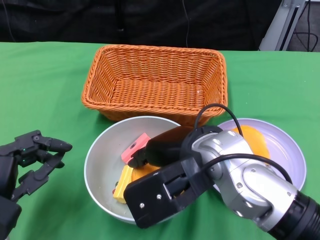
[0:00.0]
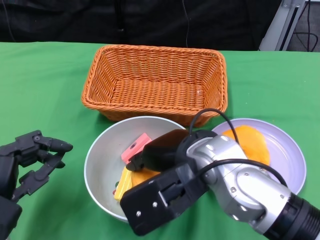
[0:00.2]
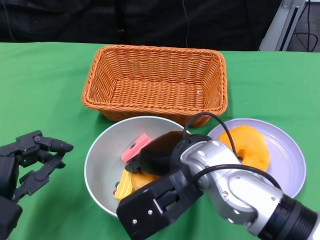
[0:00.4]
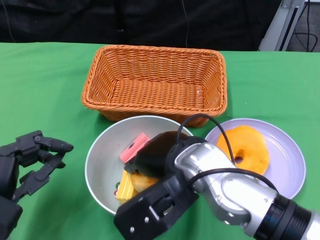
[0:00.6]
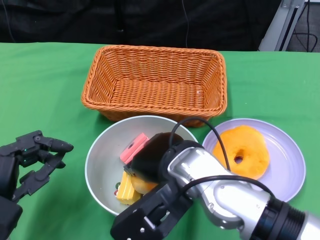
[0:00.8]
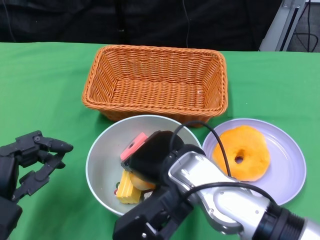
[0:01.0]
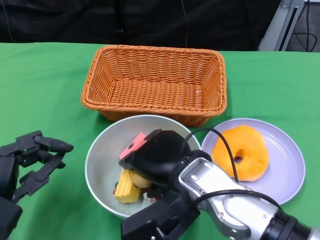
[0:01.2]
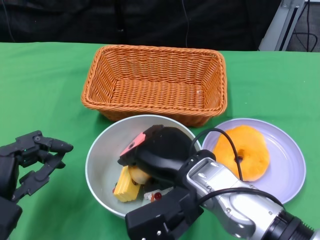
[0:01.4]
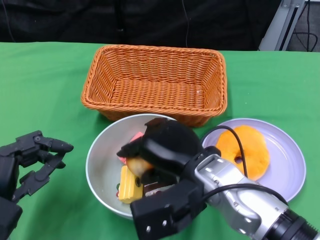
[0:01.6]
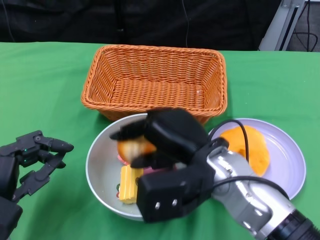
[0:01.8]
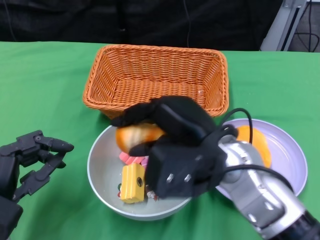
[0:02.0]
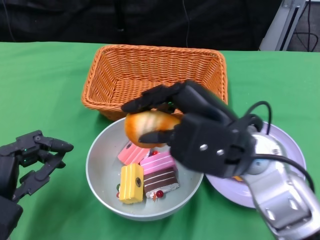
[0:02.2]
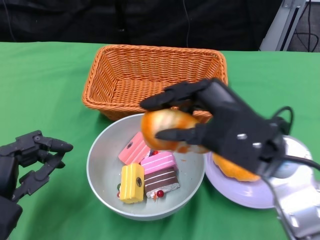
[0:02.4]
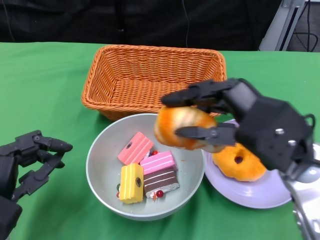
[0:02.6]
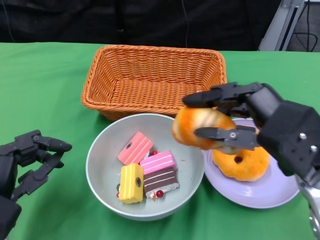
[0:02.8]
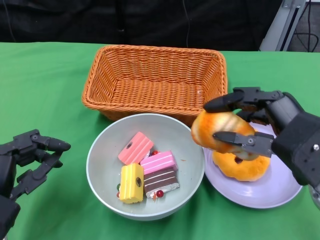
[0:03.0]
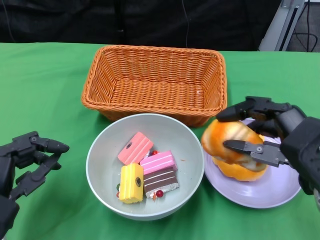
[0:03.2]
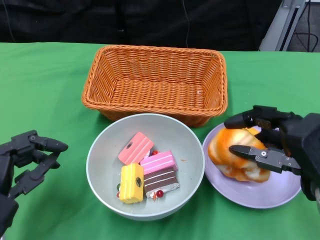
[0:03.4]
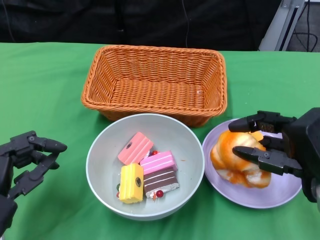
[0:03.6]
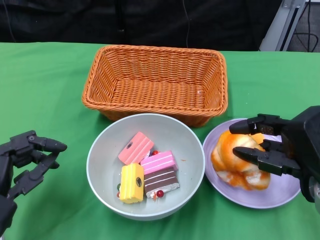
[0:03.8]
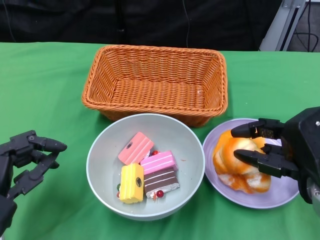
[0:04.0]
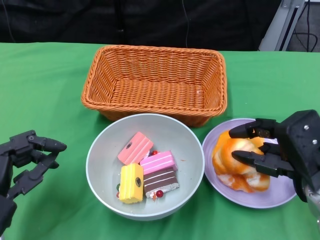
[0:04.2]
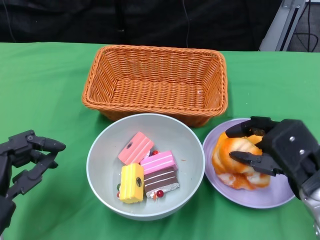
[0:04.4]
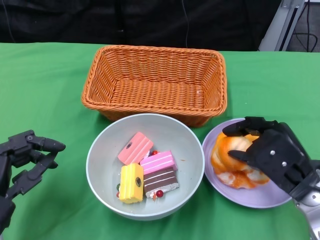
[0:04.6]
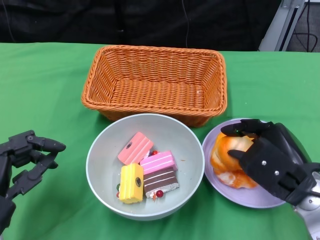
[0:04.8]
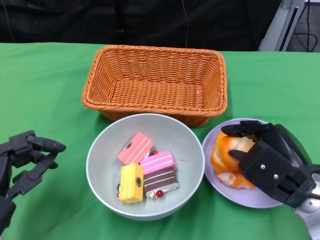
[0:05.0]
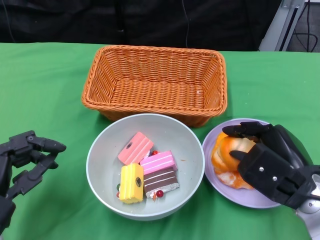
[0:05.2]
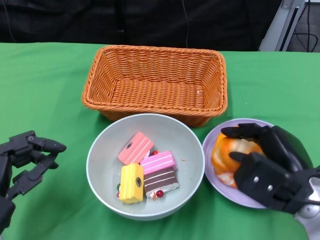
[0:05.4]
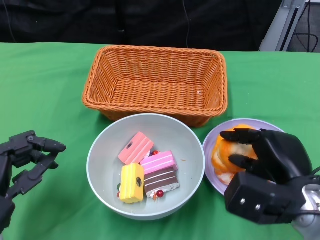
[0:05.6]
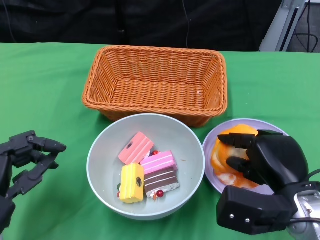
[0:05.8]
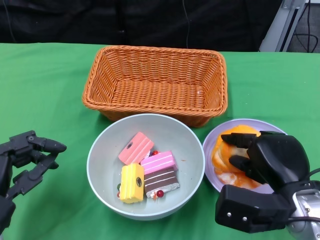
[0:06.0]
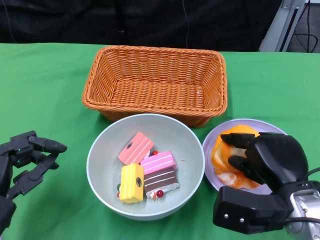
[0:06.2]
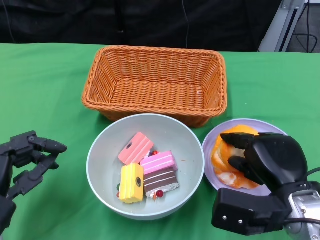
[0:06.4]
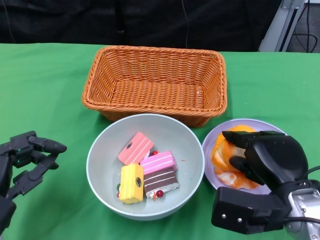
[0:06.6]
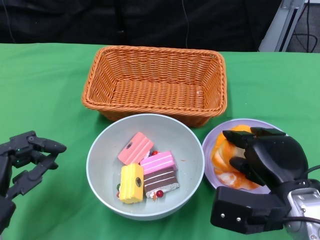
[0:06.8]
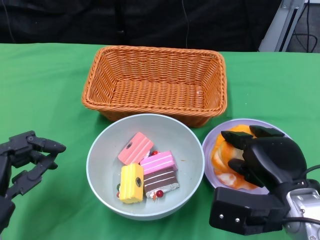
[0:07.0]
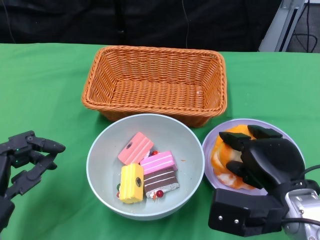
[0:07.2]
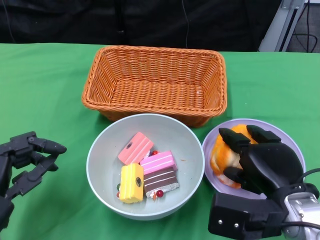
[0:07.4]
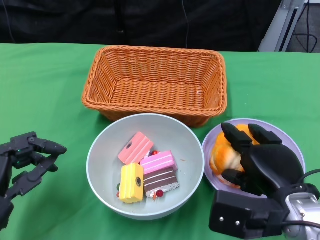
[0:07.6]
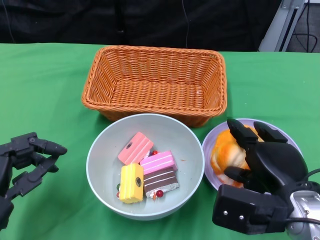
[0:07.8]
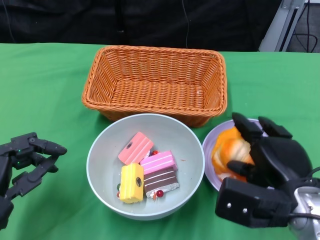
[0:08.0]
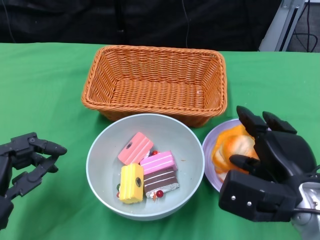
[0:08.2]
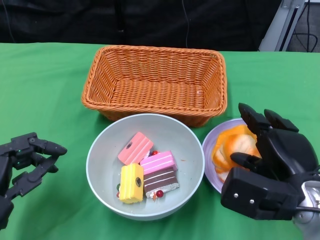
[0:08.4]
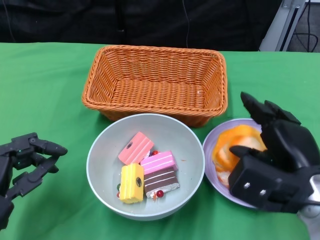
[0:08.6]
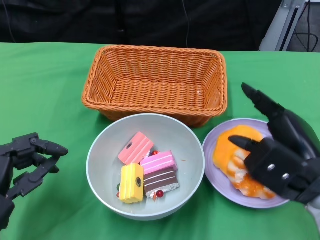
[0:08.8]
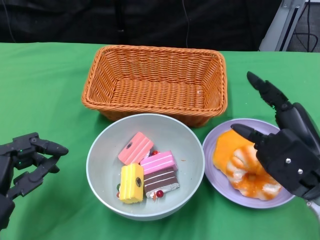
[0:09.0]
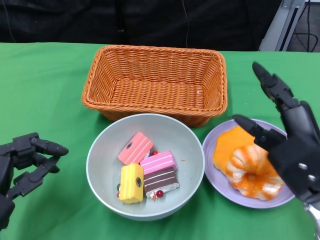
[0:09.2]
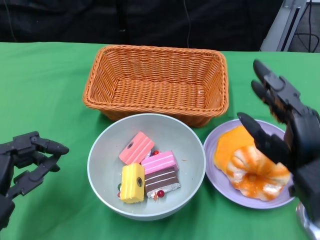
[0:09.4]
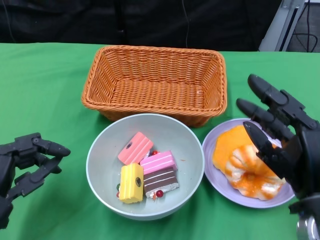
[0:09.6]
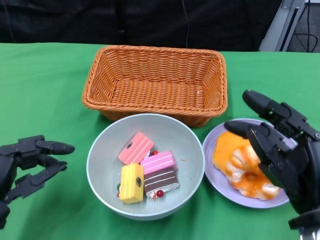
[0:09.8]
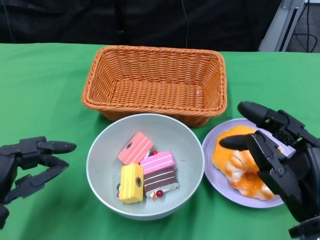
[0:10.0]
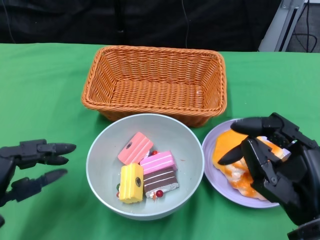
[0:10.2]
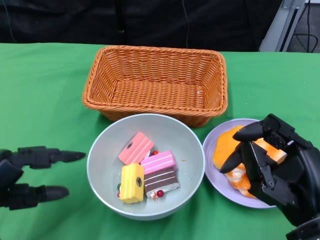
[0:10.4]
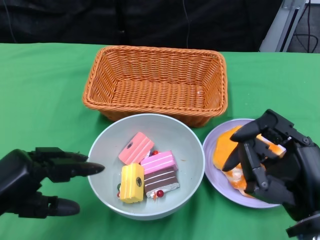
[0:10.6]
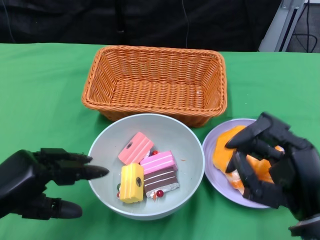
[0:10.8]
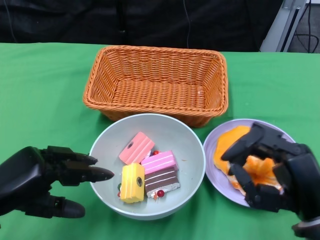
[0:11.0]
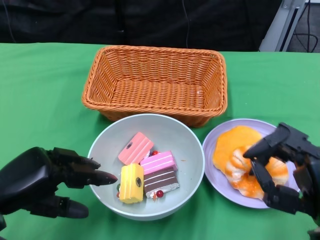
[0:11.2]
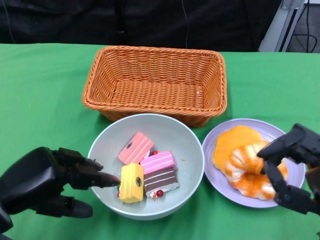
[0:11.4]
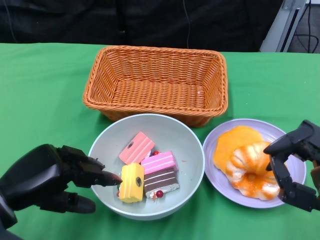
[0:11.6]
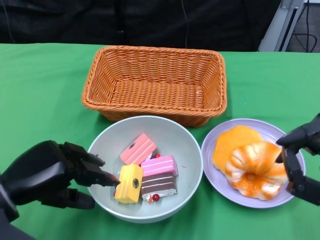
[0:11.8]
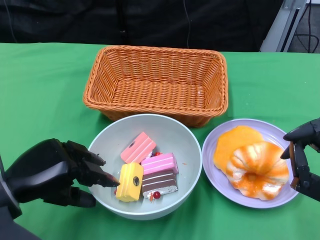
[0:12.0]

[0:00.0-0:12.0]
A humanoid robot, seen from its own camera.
Step, 0:00.0 to 0:09.0: Pick up the bread with the right gripper and place it on the plate.
0:00.0 to 0:01.6: The right hand goes some 5 cm downward.
0:01.6 to 0:03.0: The right hand moves to the right, approximately 15 cm.
0:03.0 to 0:04.4: The right hand moves downward, roughly 5 cm.
0:06.0 to 0:07.6: The hands make only small movements.
0:07.6 to 0:09.0: The right hand shifts by approximately 5 cm.
0:09.0 to 0:10.4: The right hand shifts some 5 cm backward.
0:10.4 to 0:12.0: The left hand moves some 5 cm.

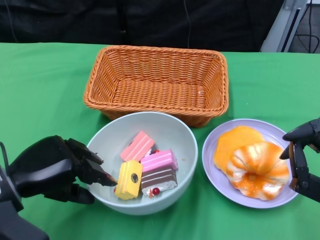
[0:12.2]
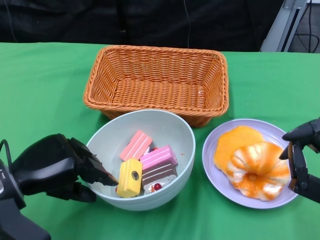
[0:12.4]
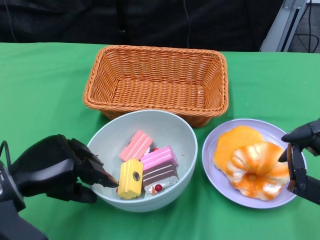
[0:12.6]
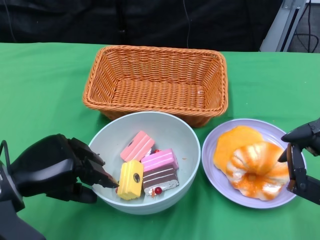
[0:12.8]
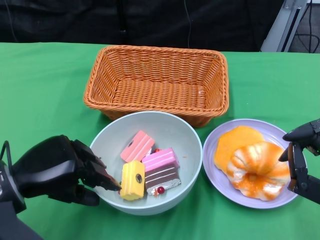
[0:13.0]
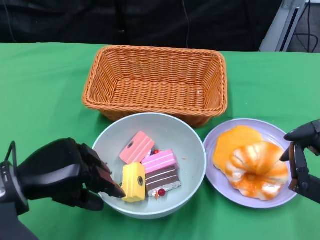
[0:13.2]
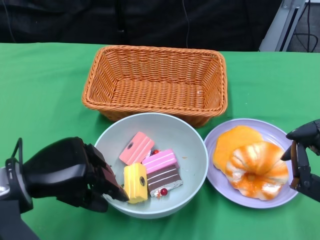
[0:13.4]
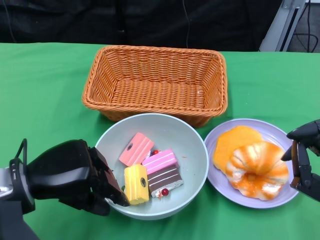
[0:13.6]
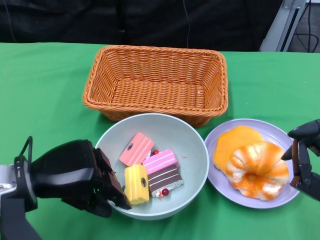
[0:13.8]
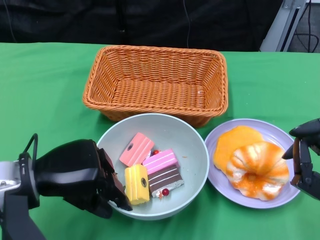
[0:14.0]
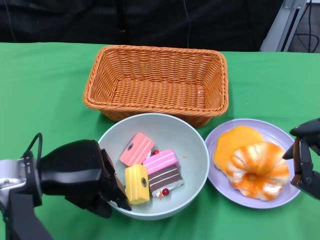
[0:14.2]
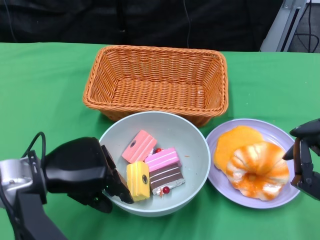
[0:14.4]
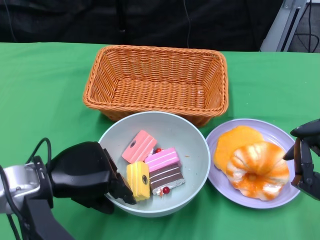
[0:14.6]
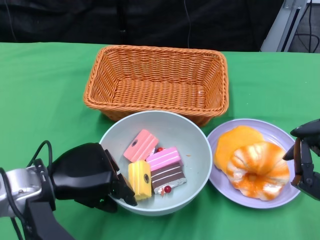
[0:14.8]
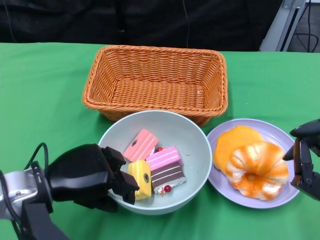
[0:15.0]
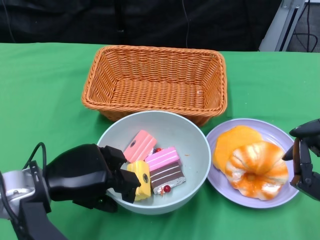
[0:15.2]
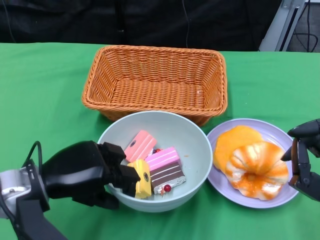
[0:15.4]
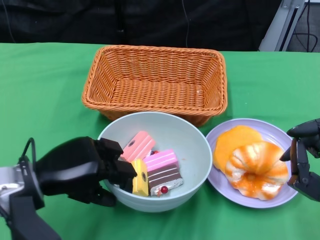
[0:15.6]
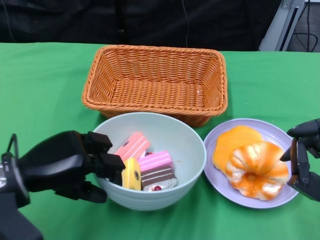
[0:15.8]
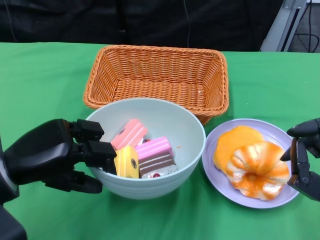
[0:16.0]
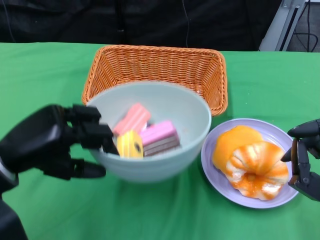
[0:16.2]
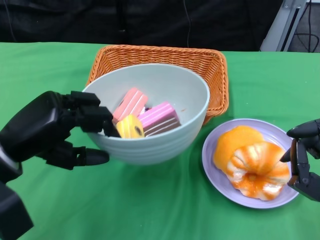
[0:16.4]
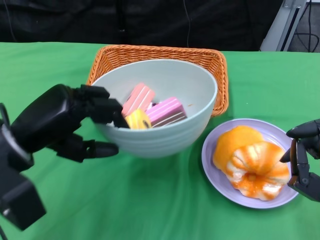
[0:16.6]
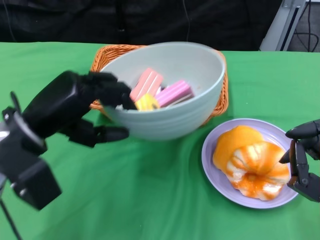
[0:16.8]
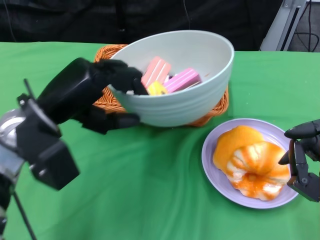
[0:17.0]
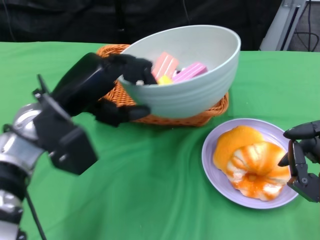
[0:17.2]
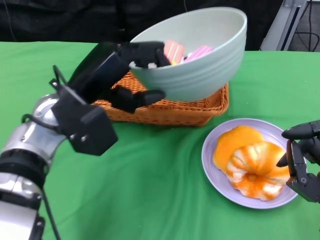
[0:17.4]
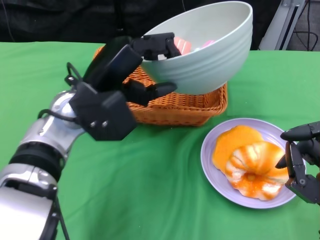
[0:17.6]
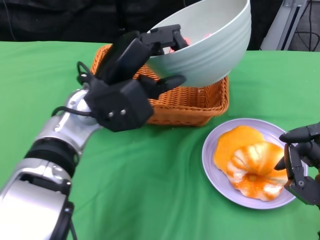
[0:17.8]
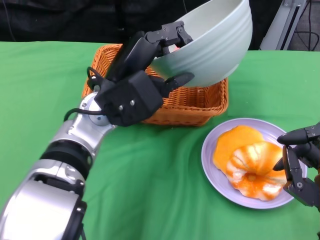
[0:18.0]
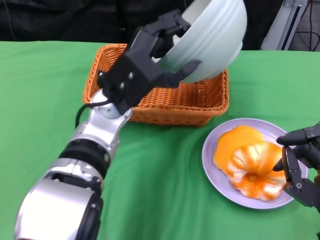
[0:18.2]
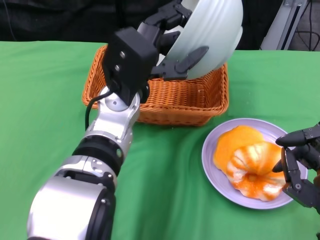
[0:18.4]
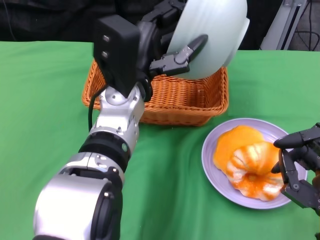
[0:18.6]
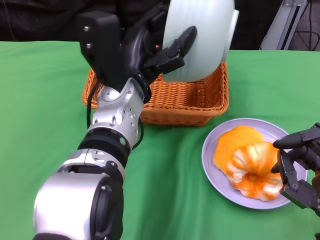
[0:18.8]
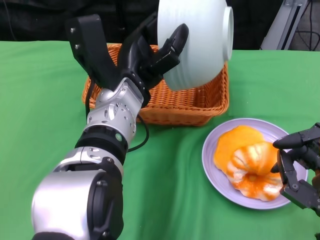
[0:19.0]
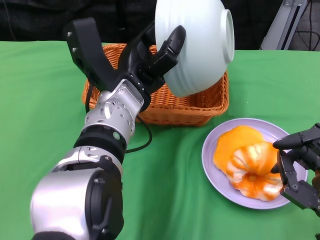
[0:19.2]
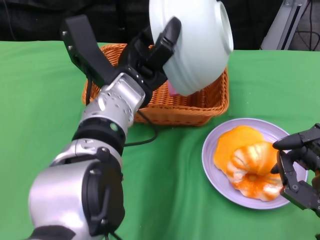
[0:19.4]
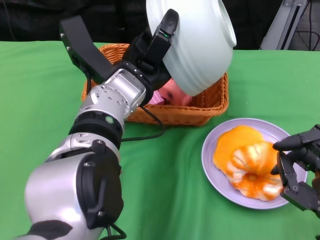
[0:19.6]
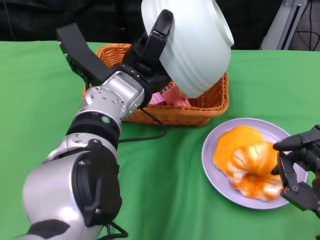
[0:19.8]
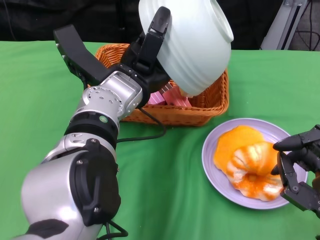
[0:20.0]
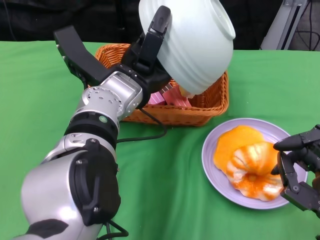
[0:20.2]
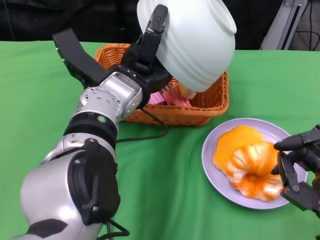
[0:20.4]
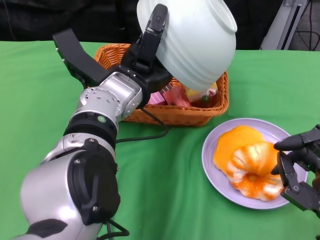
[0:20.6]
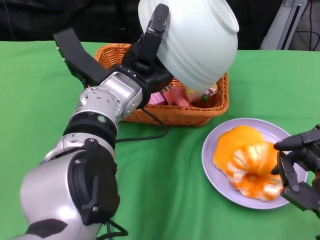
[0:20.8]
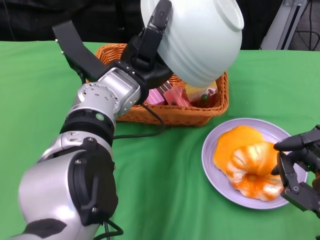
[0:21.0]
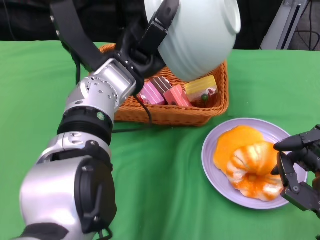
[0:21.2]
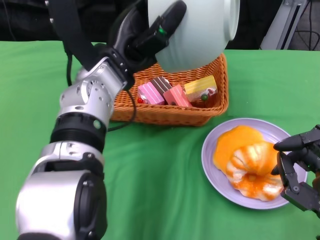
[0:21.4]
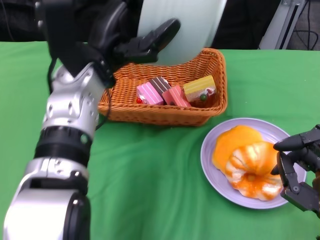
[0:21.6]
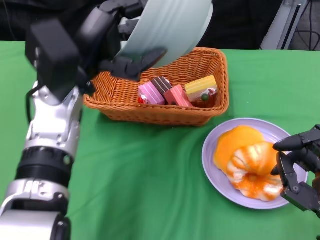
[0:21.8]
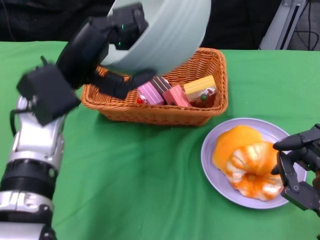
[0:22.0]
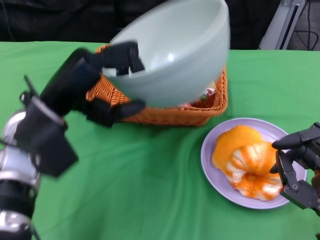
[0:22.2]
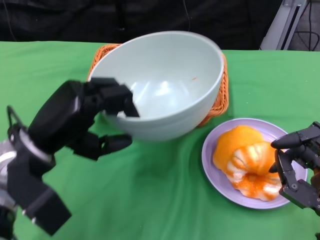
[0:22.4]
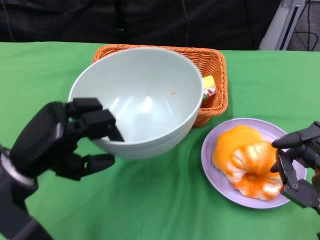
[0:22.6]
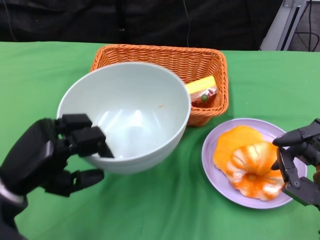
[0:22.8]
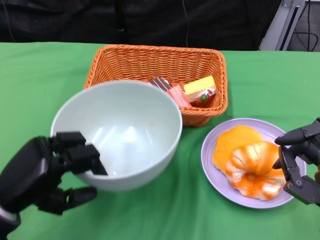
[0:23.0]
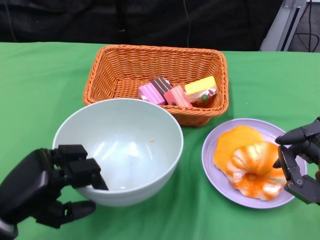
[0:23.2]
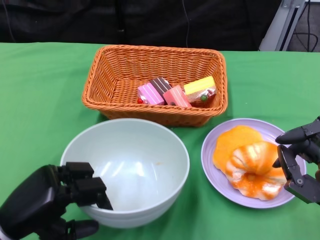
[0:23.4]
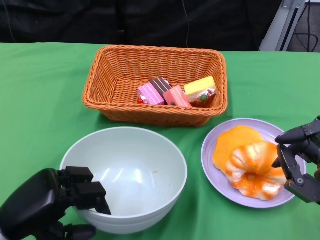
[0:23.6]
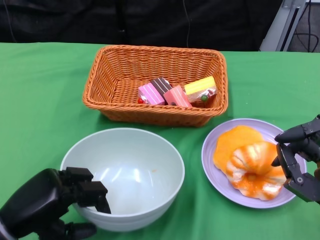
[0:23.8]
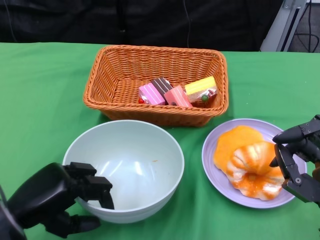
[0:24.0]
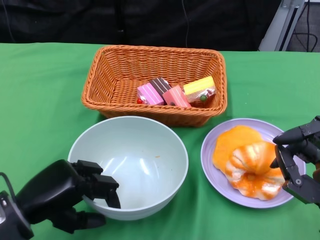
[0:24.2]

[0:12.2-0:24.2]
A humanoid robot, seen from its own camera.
Step, 0:12.2 to 0:15.2: Grasp the bowl with the left gripper.
Step, 0:15.4 to 0:21.2: Pour the cake into the basket with the left gripper.
0:12.2 to 0:15.2: The hands stay close to where they were, moving slightly.
0:15.2 to 0:16.6: The left hand is displaced upward by about 5 cm.
0:16.6 to 0:18.2: The left hand goes some 15 cm to the right and forward.
0:21.2 to 0:22.6: The left hand goes approximately 20 cm to the left, backward and downward.
0:22.6 to 0:24.2: The left hand ends up about 5 cm from where it was.
